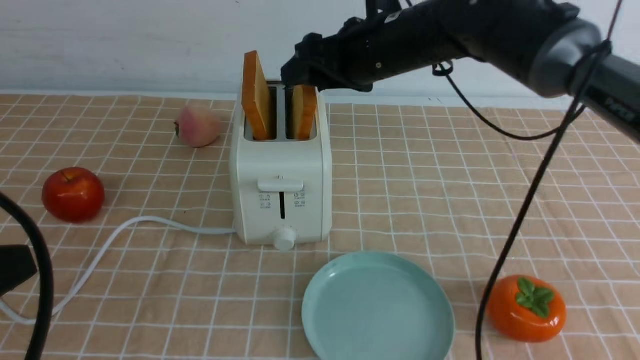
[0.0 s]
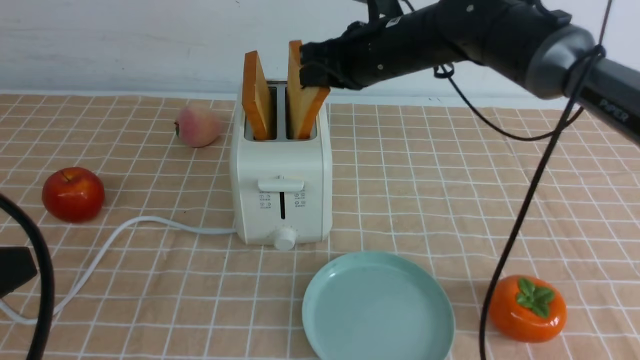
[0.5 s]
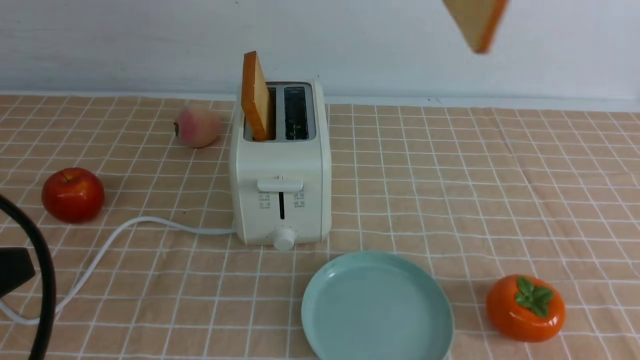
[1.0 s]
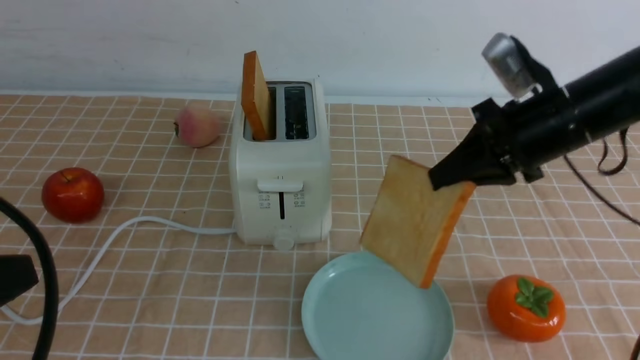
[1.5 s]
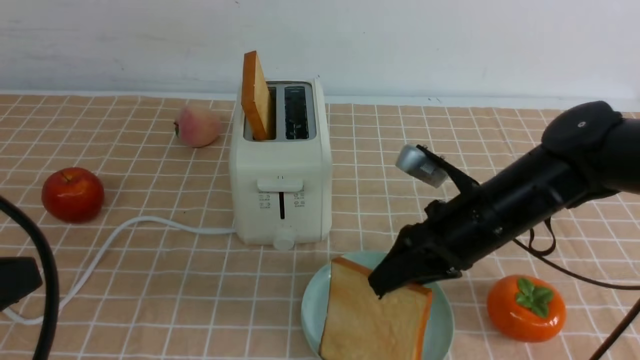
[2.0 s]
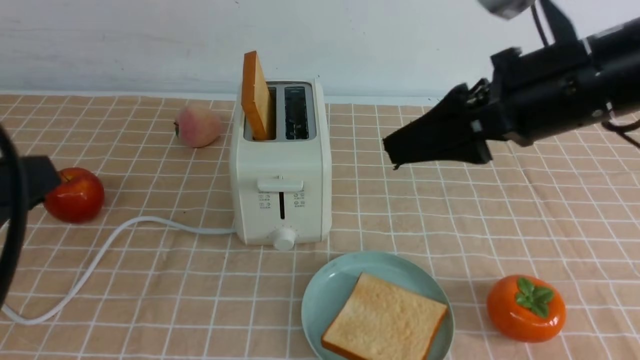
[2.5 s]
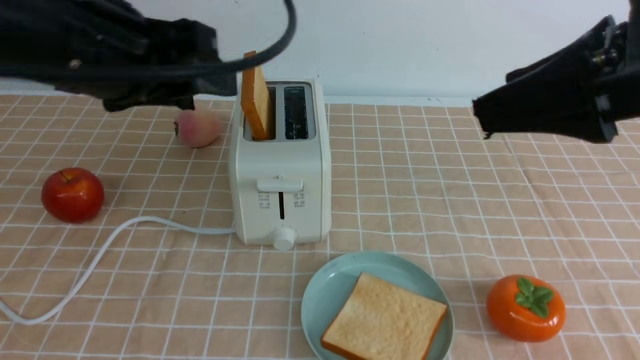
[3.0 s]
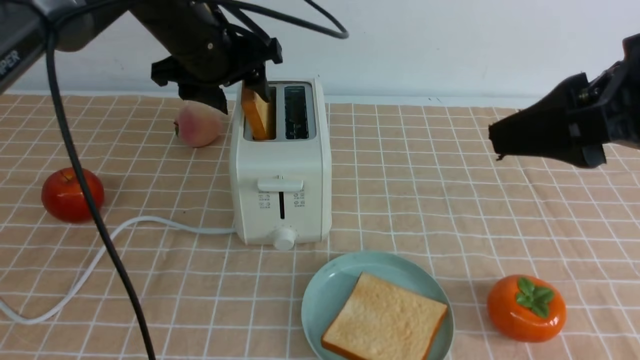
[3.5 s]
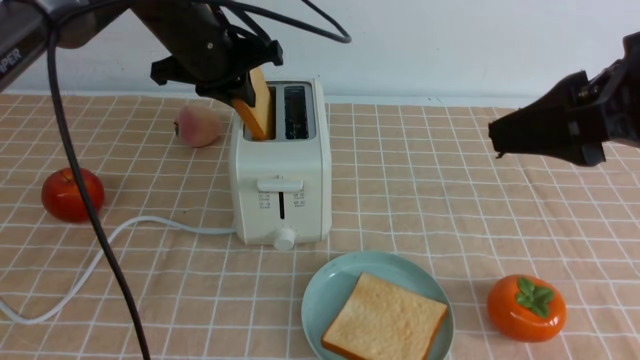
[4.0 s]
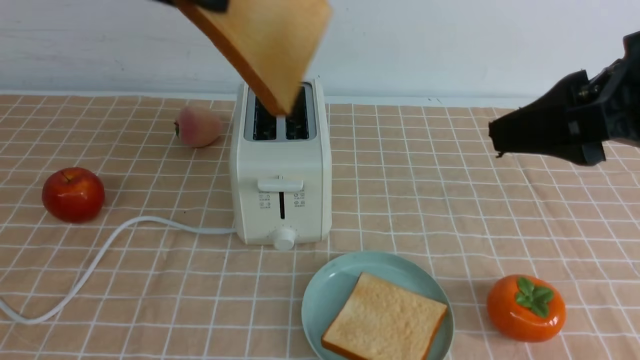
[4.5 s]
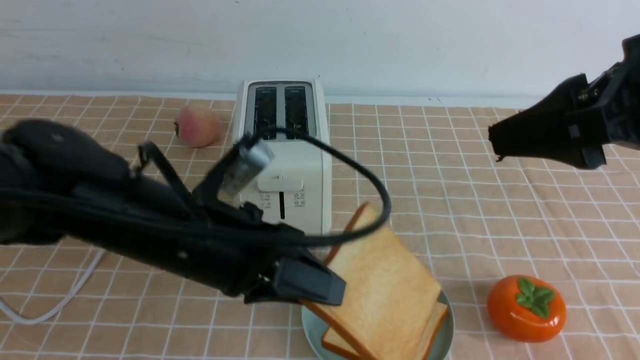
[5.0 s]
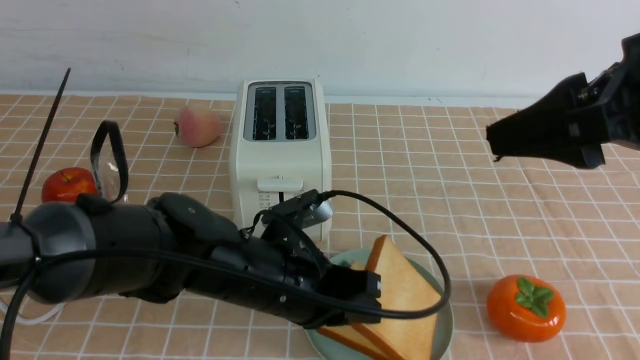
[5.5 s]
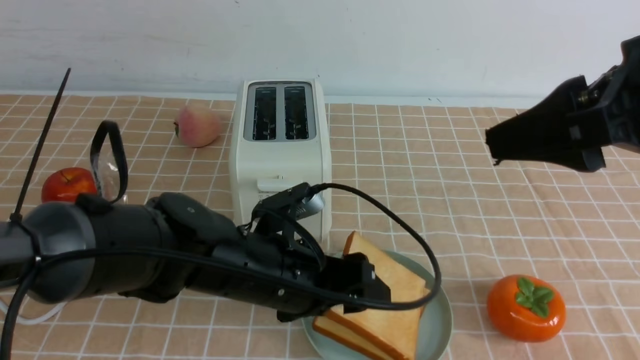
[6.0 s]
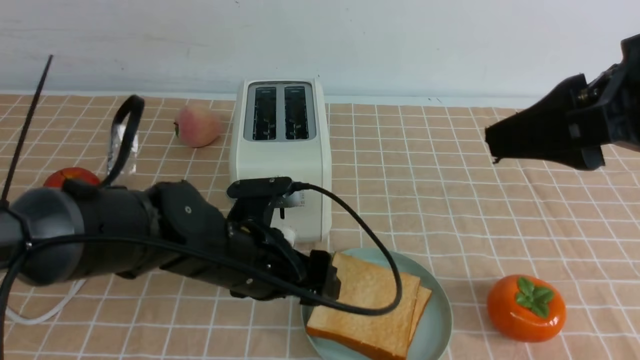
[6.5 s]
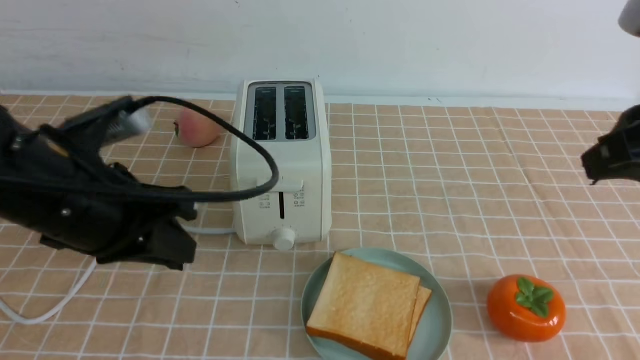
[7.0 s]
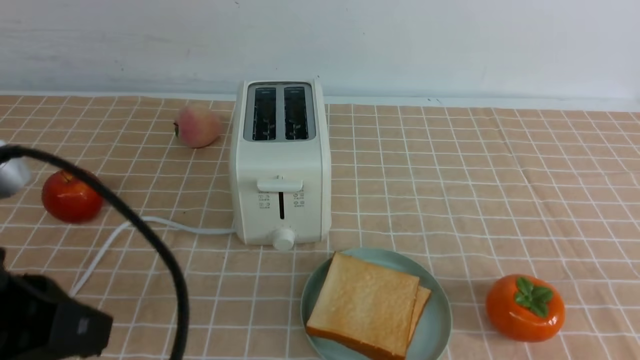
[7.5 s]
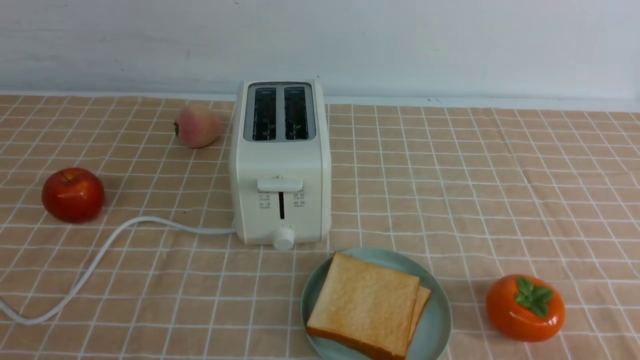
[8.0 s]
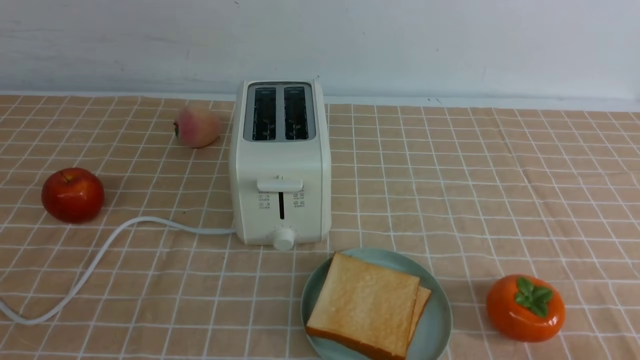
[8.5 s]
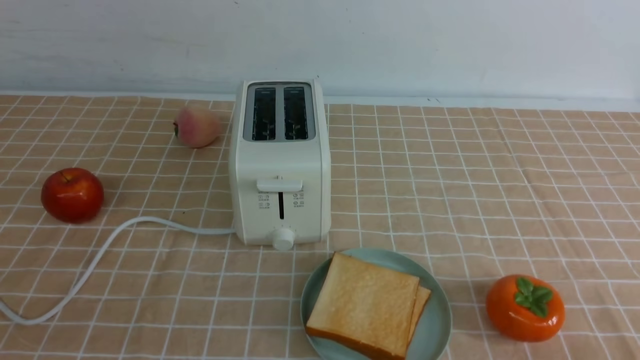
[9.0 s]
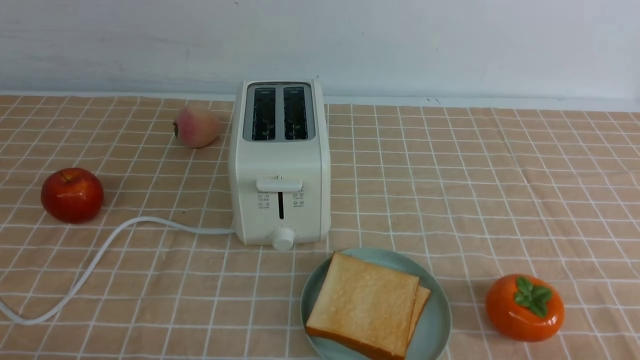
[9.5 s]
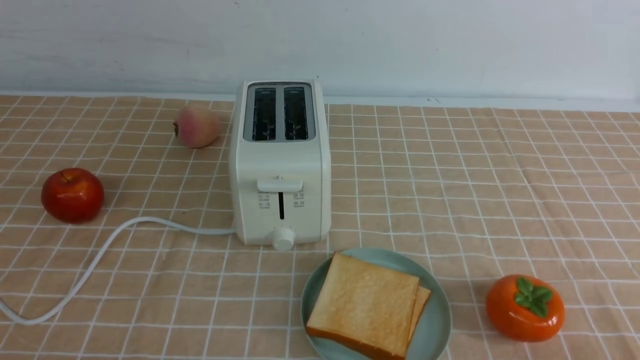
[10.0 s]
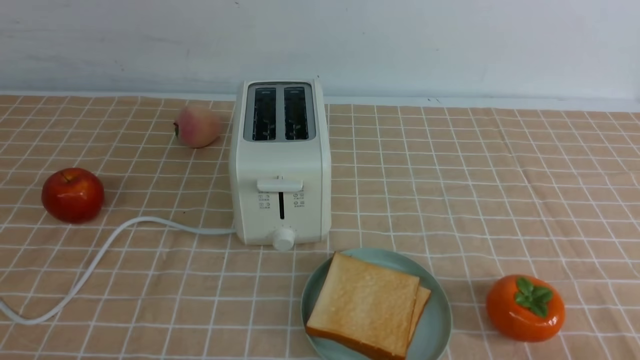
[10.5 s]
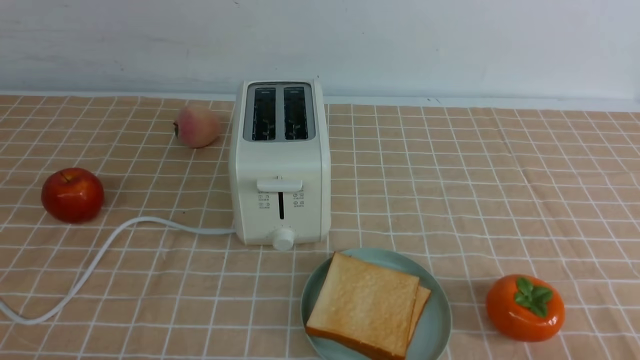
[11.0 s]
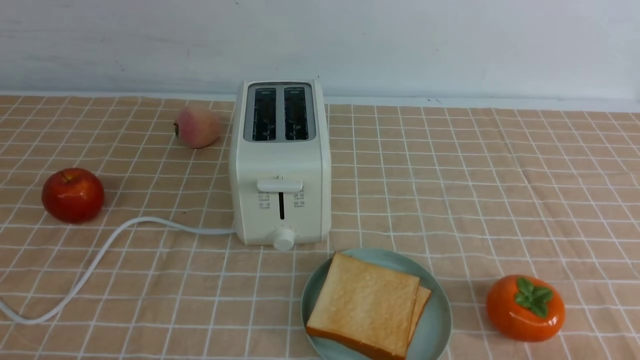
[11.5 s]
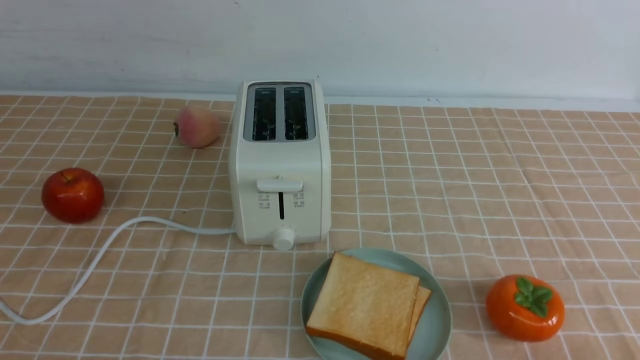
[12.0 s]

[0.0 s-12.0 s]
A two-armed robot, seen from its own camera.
Task of the whole recording: take toasted bread from bread machine on light coffee tablecloth place on plate.
Step, 1.0 to 2.0 s: use the right arm to put a slice of bread into the plate.
Step, 2.5 to 4.0 s: use the left arm to take out a slice of bread.
Step, 4.5 to 6.0 s: use the left arm to put a slice of bread into the empty plate.
0.0 to 2.0 s: The right gripper is displaced backward, to the right and downward by about 20 cm, and closes and opens again.
2.0 to 4.0 s: The left gripper goes about 30 cm forward, and opens, then closes once more, while the right gripper moves upward and backward, about 20 cm.
4.0 to 6.0 s: The left gripper moves downward, backward and to the right, about 25 cm, and opens.
6.0 to 8.0 s: The right gripper is displaced downward, backward and to the right by some 25 cm, and closes; the left gripper travels backward, to the left and upward by some 35 cm, and closes its fingers.
